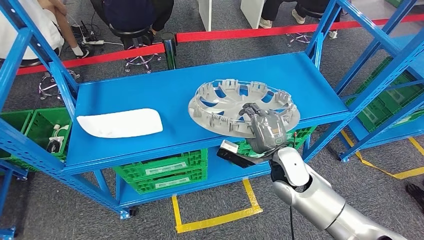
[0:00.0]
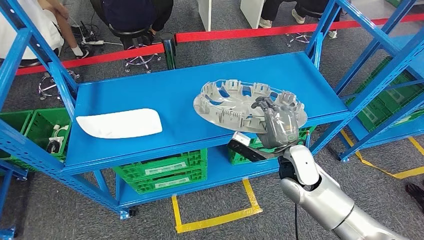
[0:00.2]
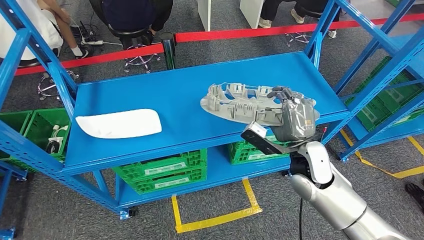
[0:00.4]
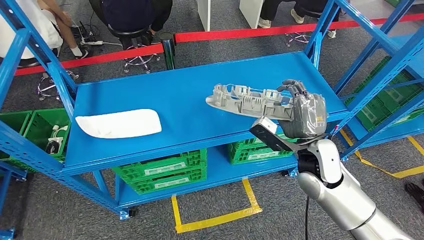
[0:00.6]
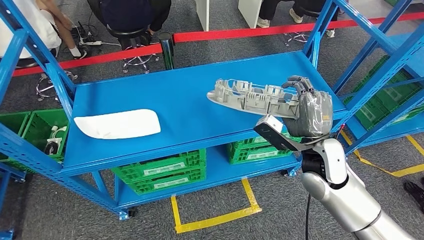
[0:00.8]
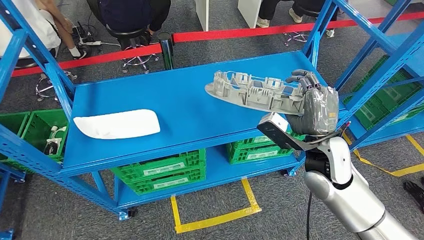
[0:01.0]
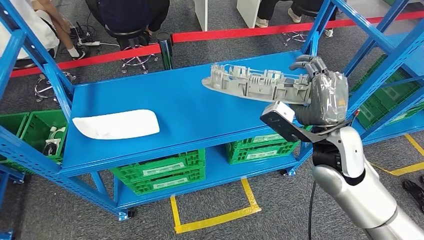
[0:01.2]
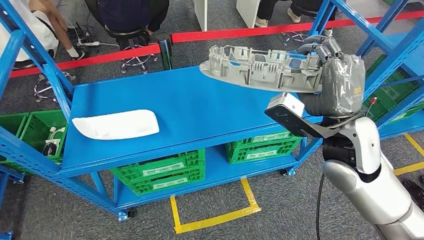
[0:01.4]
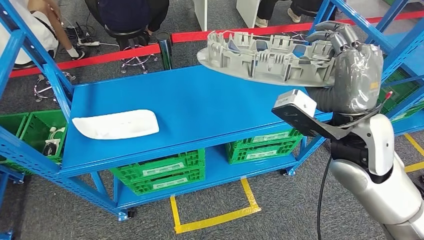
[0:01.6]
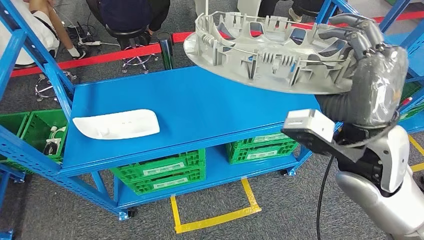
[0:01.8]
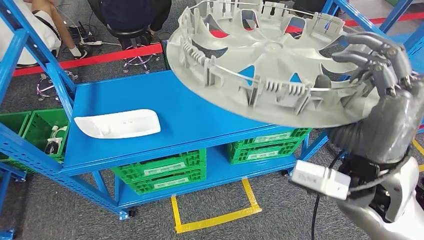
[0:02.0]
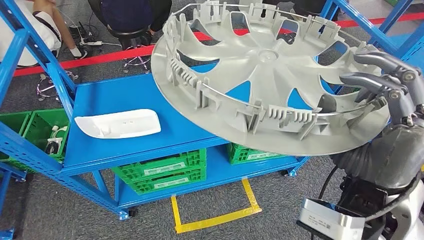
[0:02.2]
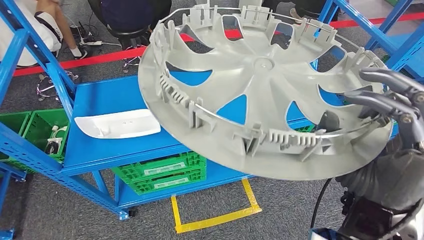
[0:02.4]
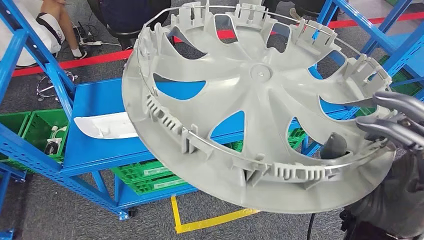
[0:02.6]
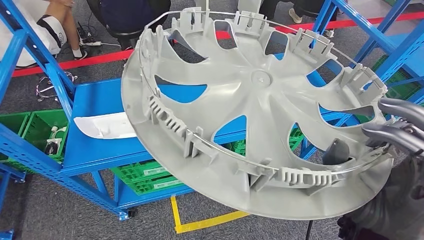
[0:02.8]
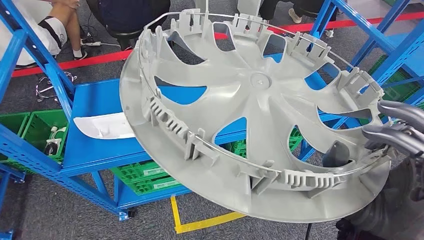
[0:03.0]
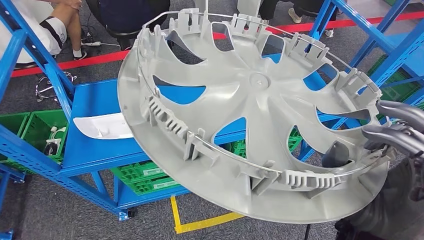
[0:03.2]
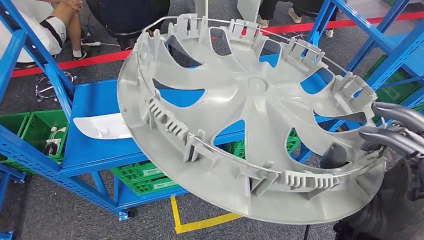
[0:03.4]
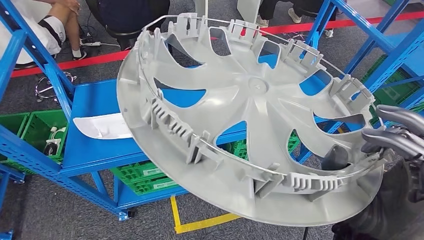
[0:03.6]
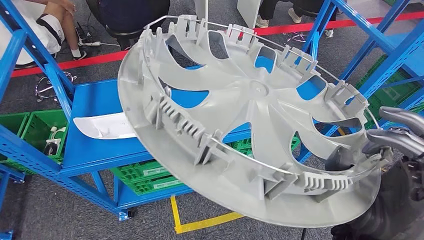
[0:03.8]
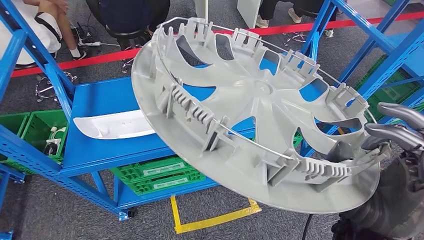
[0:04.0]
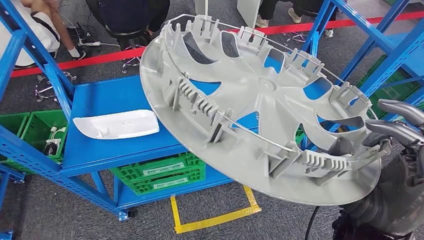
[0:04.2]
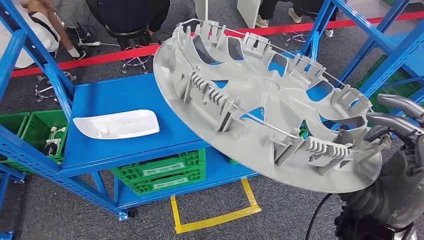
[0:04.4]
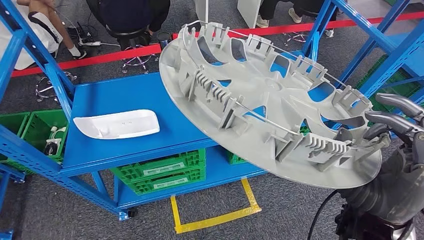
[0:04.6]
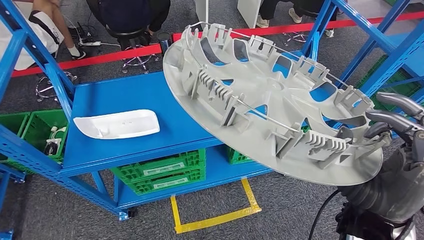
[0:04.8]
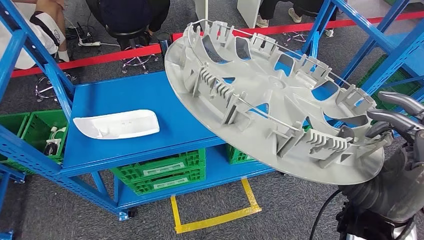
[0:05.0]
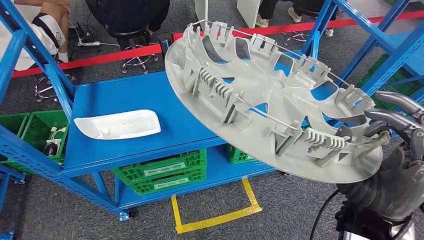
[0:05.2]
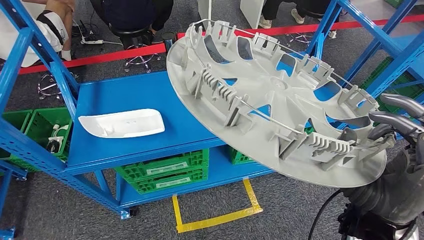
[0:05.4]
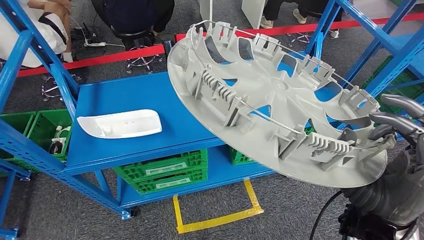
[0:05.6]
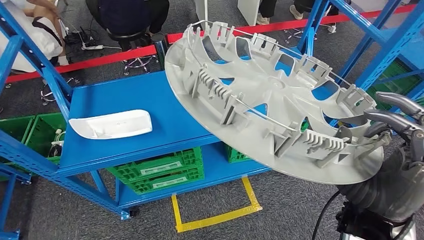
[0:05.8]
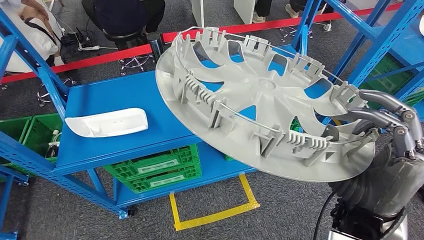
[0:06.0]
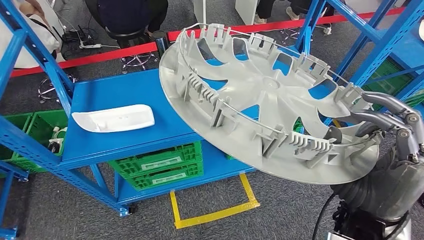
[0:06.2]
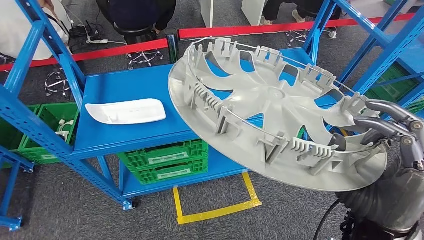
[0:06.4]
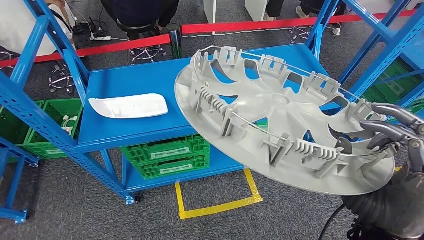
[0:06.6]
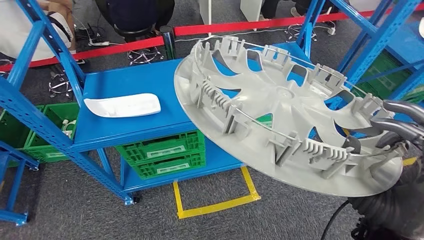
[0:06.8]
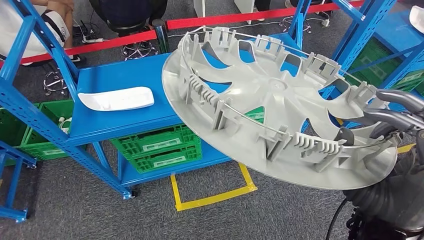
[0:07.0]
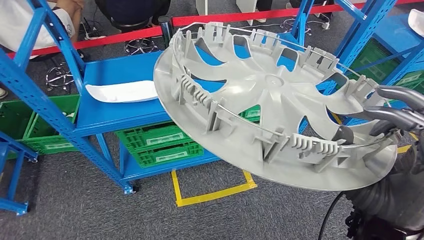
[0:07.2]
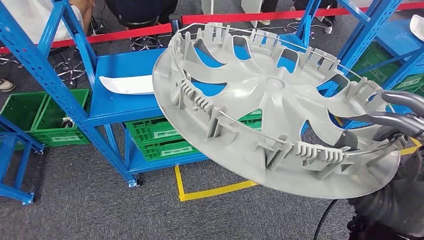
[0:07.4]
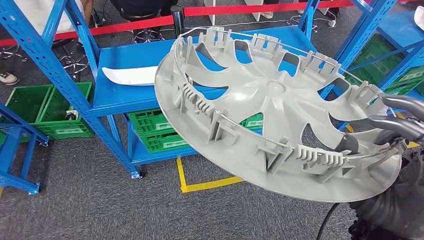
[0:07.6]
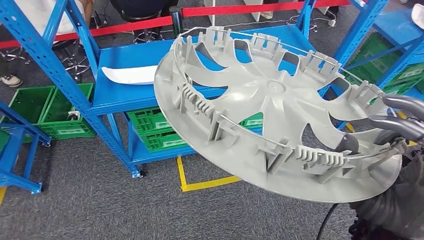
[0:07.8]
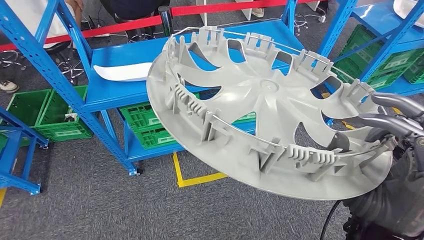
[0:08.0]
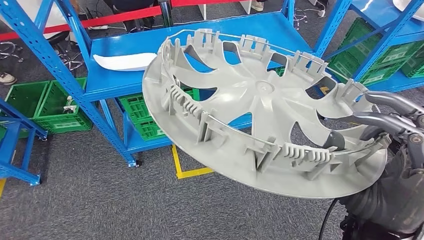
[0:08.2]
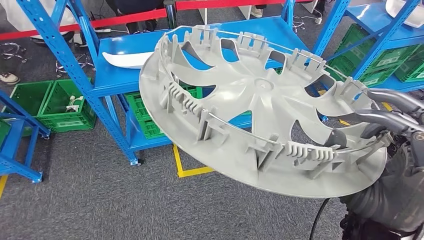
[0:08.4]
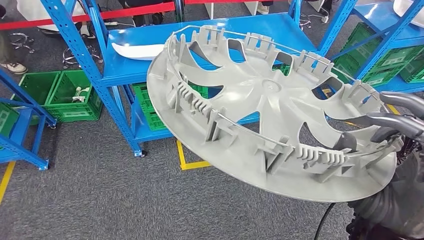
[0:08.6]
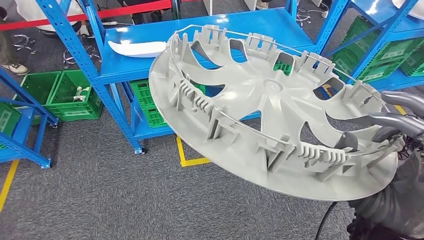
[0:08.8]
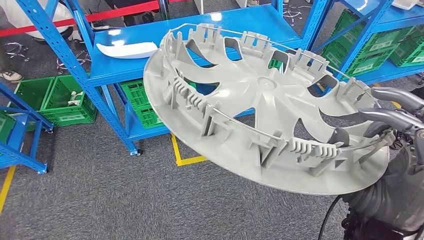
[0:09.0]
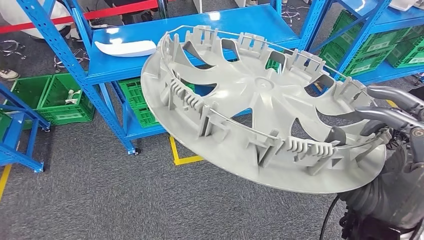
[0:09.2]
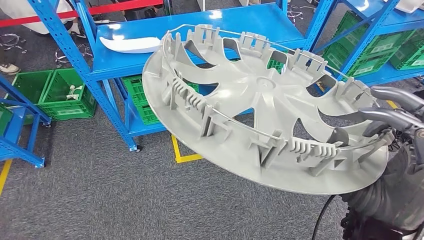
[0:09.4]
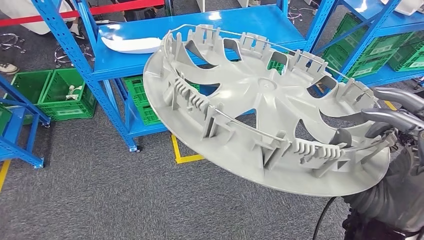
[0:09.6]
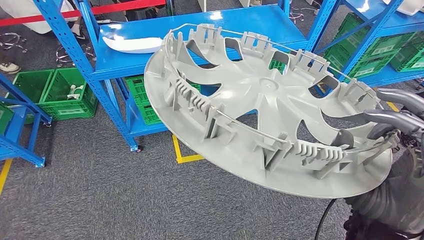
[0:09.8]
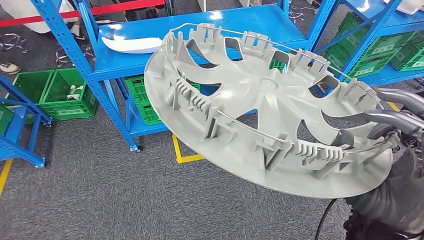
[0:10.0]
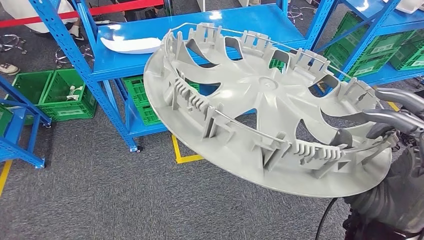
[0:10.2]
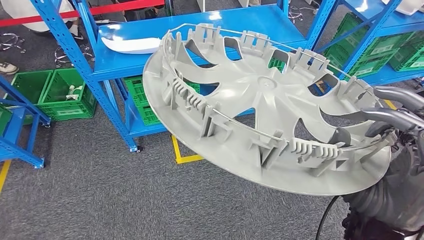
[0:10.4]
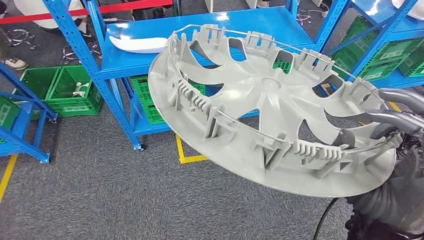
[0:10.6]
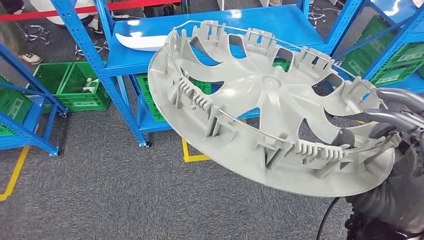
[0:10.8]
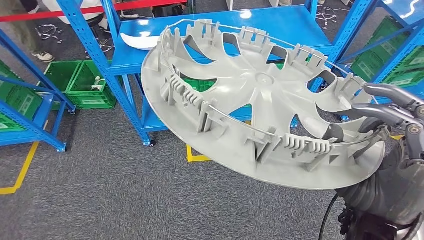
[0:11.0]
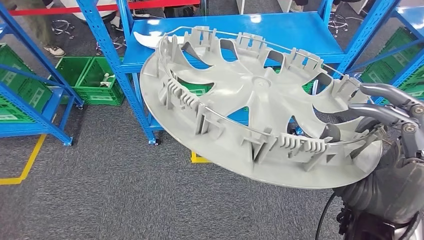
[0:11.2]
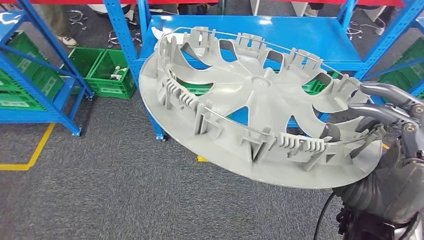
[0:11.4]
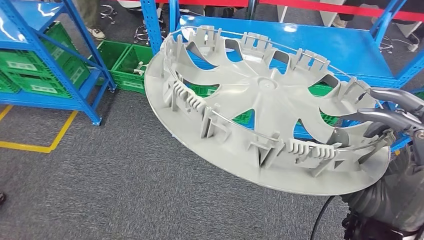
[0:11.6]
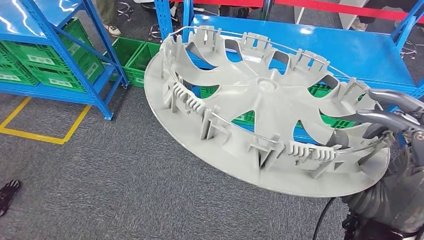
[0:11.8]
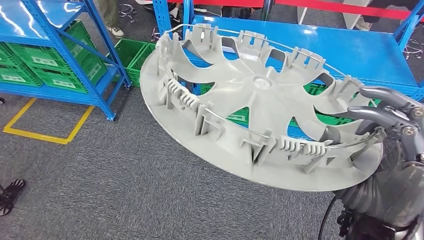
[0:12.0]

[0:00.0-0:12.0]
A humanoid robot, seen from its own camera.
0:09.0 to 0:10.4: Both hands stay about where they are.

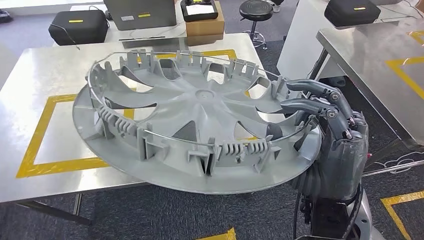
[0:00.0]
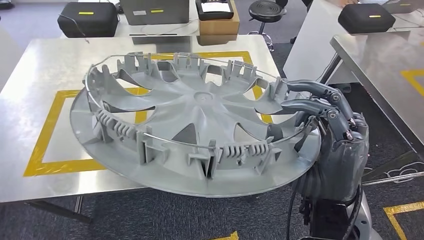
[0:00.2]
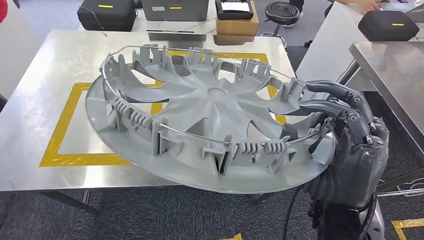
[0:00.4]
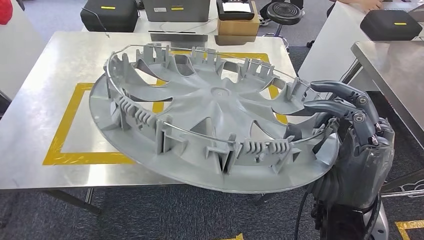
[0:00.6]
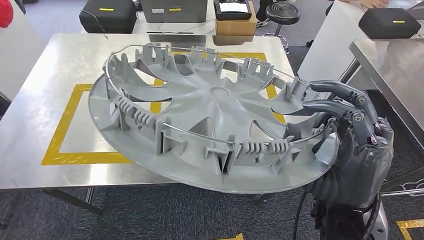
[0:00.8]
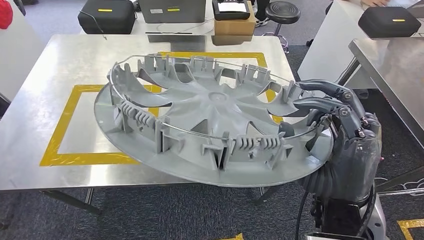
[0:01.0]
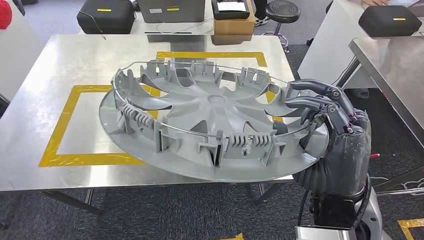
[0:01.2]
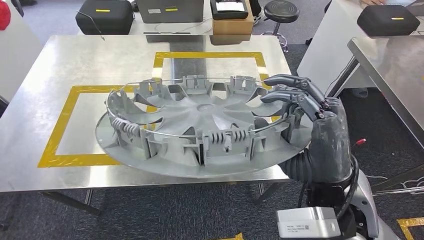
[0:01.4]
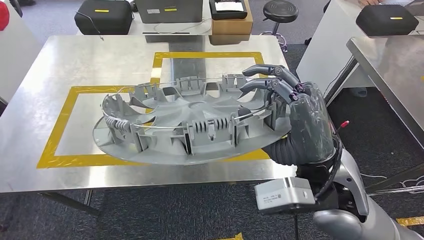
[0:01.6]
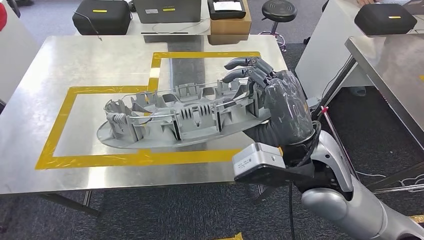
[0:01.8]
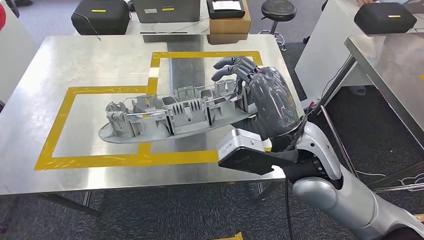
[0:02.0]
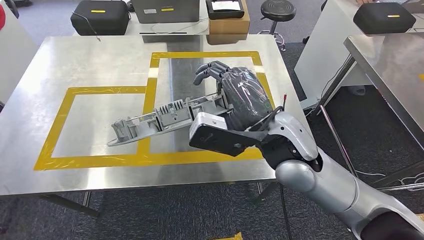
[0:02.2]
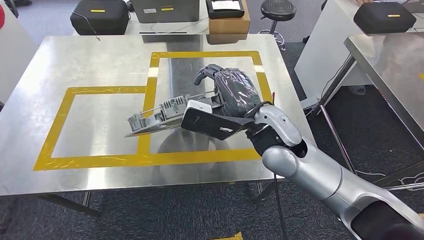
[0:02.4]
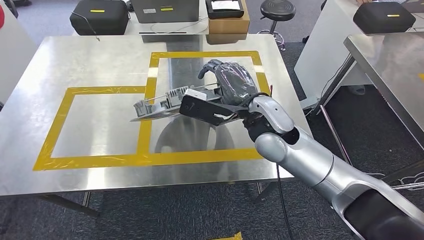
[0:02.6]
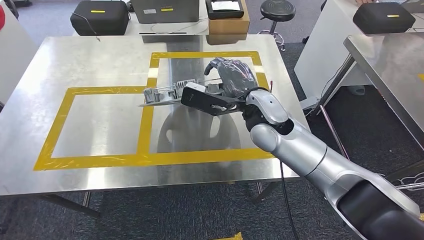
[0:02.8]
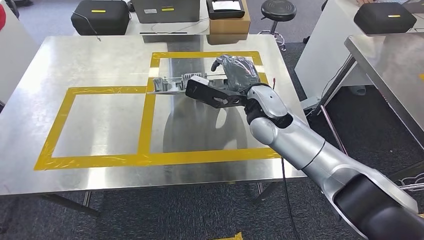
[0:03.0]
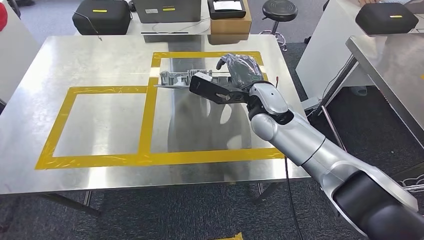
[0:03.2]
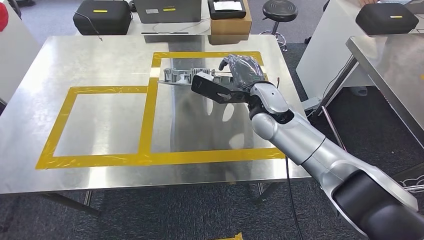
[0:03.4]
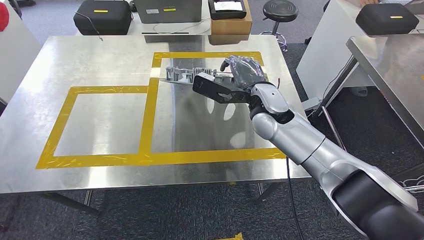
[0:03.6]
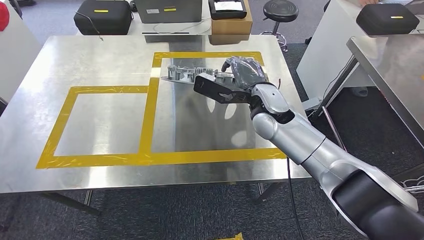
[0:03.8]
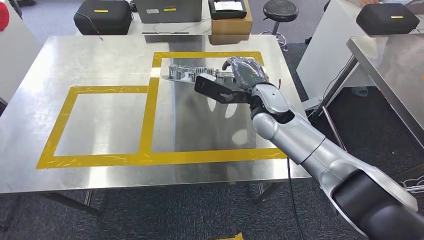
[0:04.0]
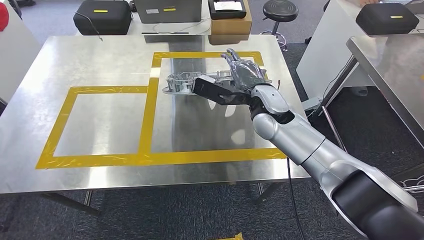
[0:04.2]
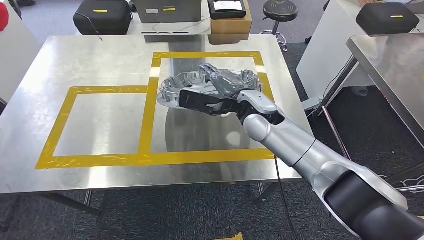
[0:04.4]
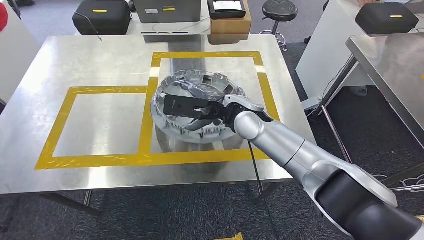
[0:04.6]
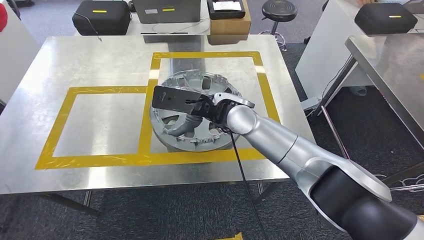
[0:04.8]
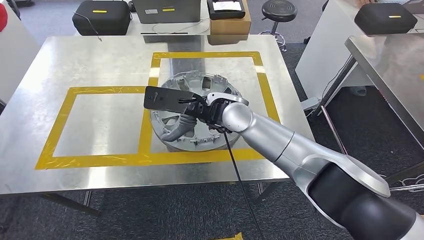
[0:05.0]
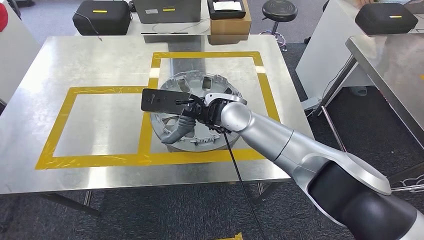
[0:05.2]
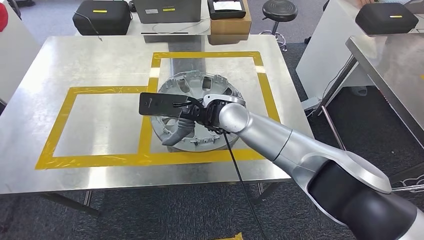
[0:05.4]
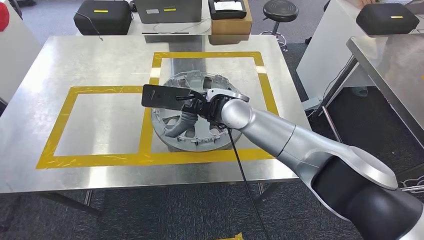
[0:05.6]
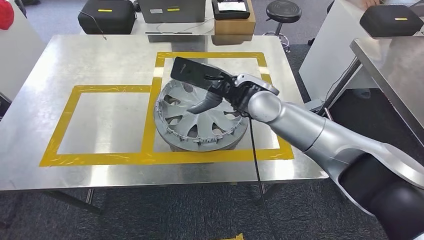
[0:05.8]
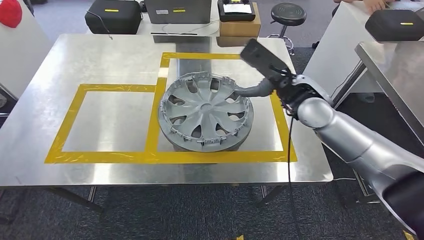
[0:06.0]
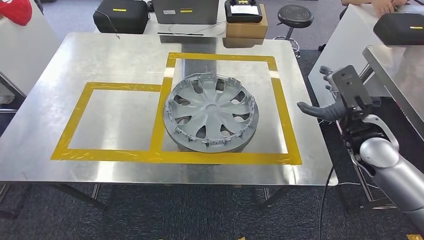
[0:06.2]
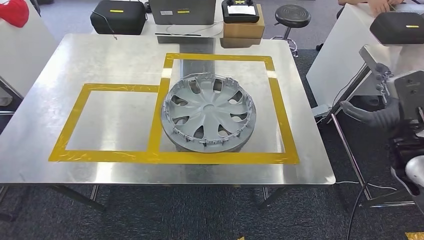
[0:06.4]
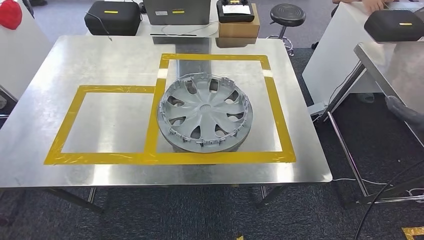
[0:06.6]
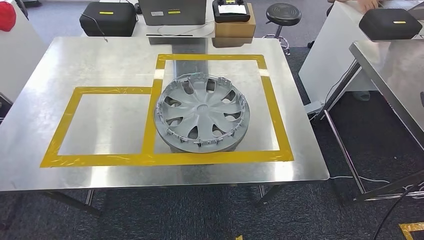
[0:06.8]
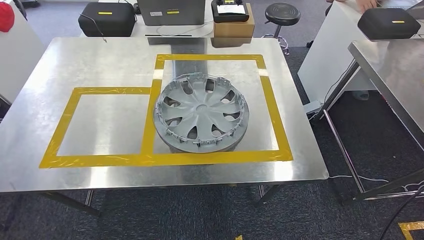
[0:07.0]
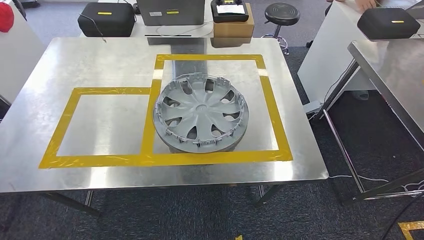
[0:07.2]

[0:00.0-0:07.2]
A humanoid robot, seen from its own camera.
Step, 0:01.8 to 0:06.2: Insert the small component into the corresponding slot on the workbench.
0:02.8 to 0:04.4: There are only small adjustments of the hands.
